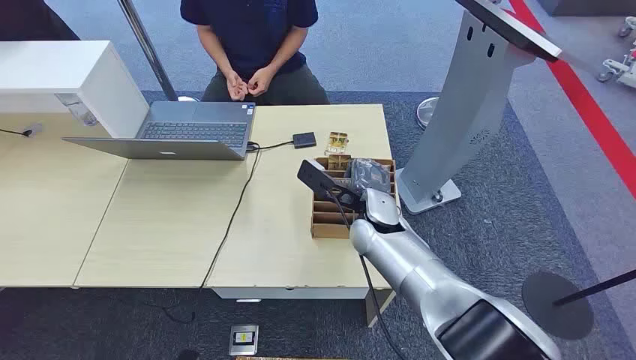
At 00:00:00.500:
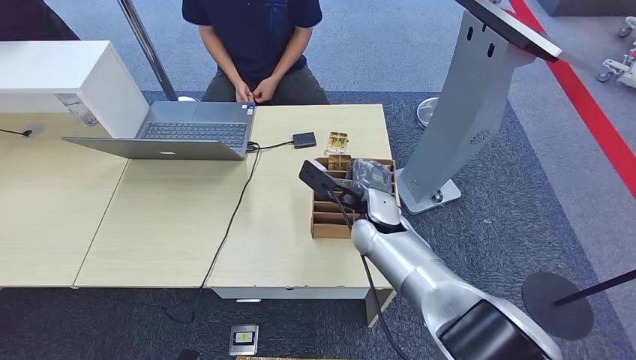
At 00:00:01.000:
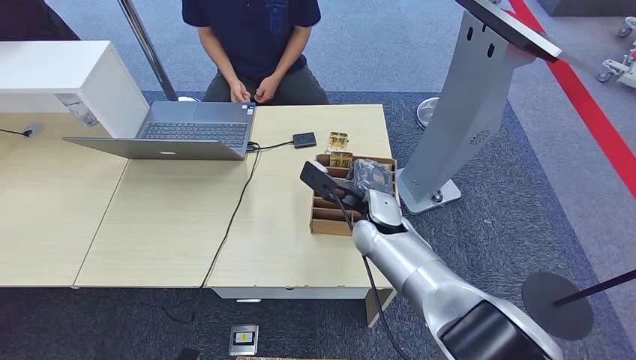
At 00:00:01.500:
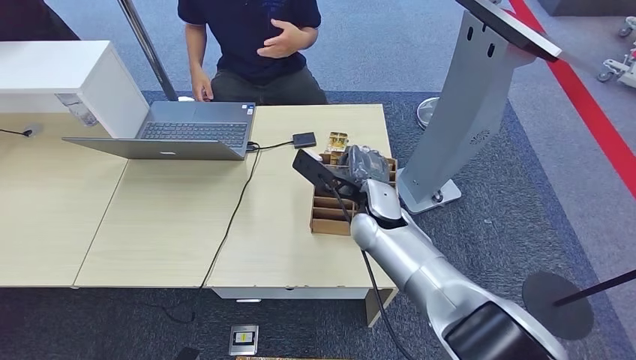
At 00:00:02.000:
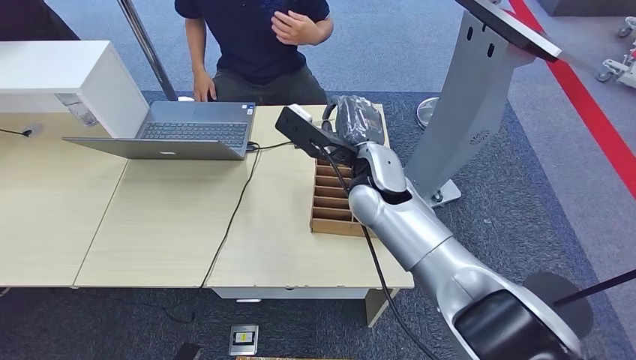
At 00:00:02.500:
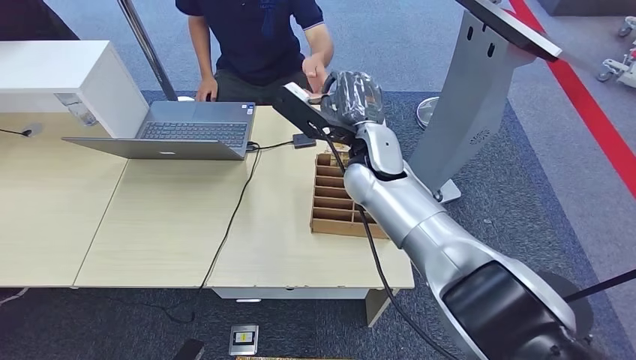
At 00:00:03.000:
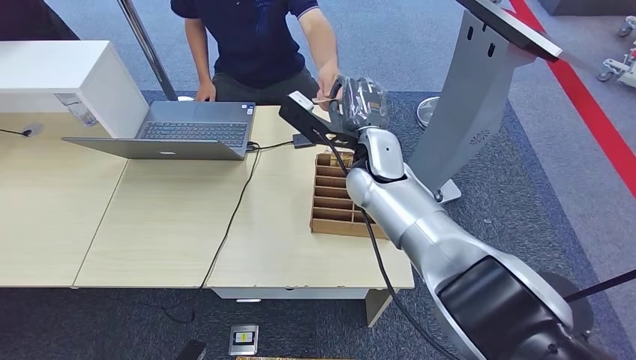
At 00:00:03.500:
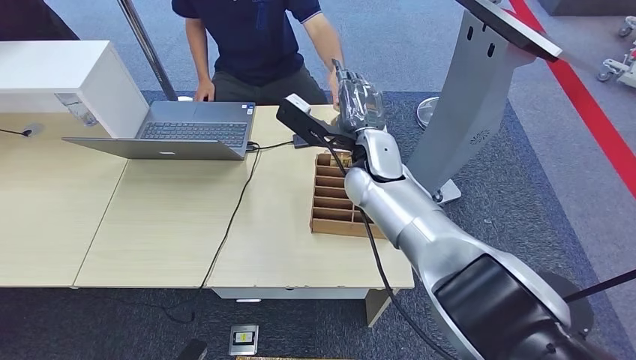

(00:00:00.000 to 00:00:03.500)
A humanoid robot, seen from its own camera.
Step, 00:00:00.000 - 00:00:02.000: Pick up the room card from the card holder.
Step, 00:00:02.500 - 00:00:03.500: Hand the room card to the target.
00:00:02.000 - 00:00:03.500: The hands make only small movements.

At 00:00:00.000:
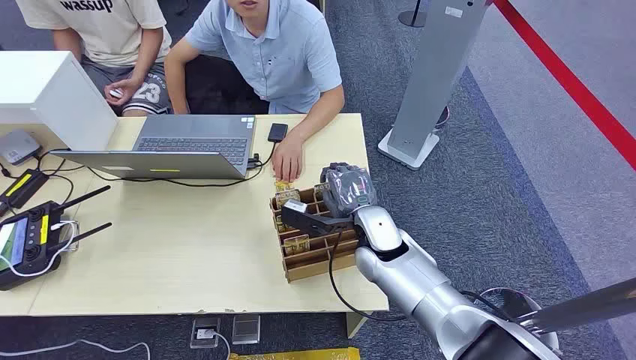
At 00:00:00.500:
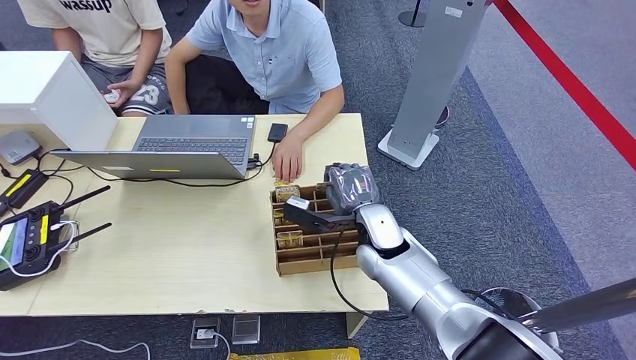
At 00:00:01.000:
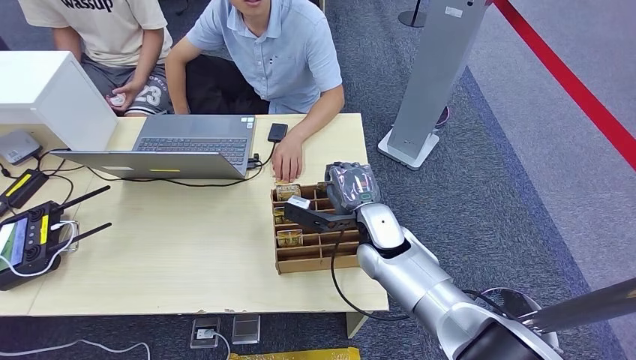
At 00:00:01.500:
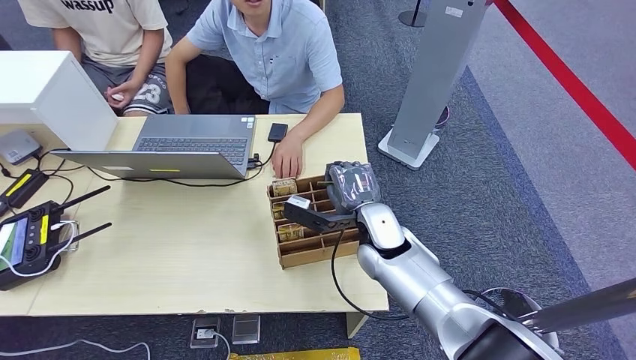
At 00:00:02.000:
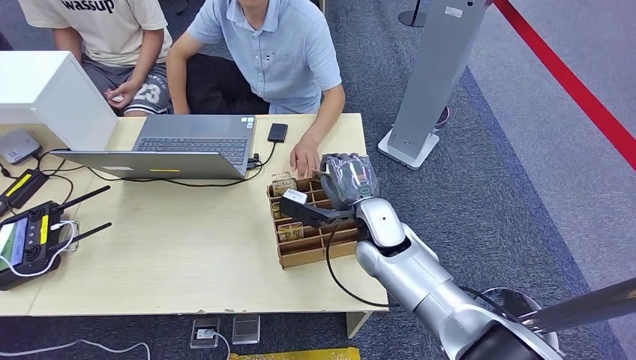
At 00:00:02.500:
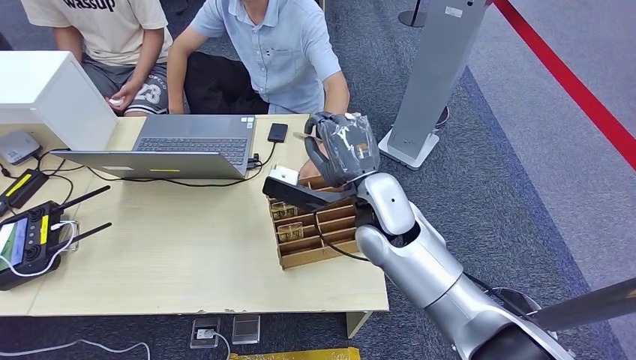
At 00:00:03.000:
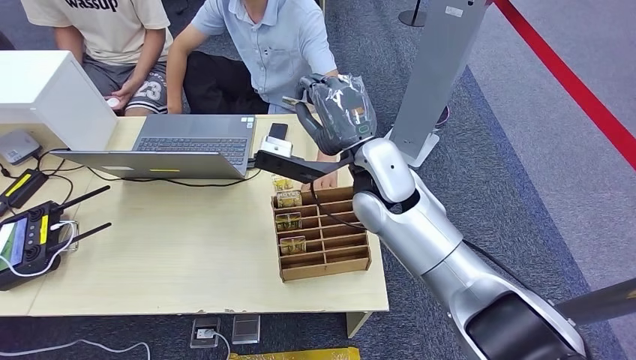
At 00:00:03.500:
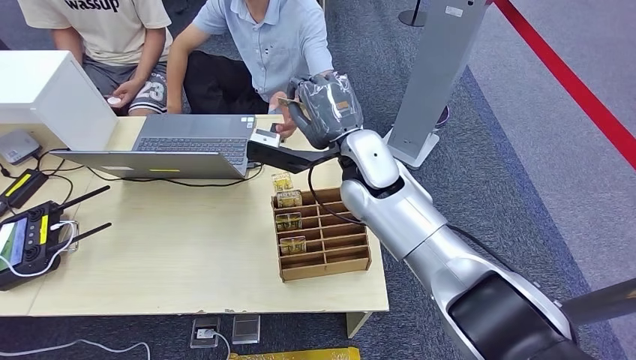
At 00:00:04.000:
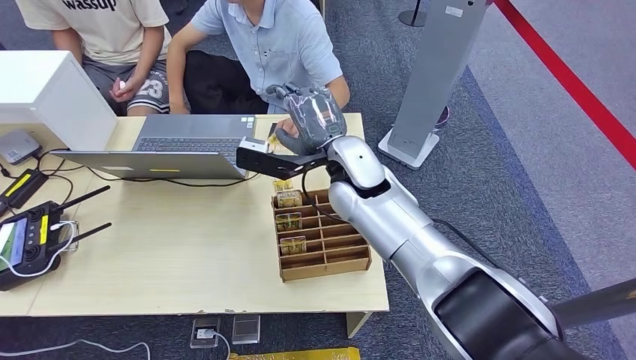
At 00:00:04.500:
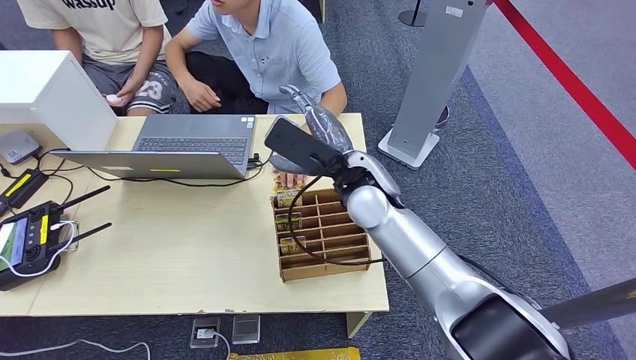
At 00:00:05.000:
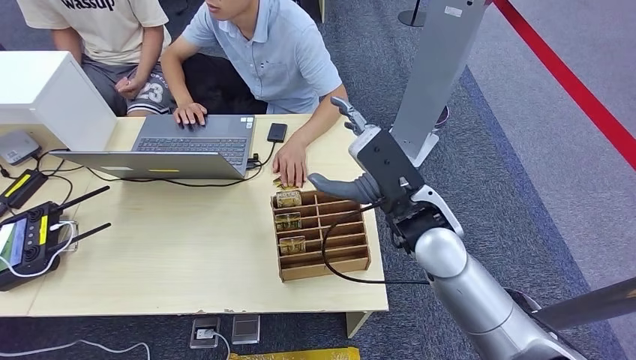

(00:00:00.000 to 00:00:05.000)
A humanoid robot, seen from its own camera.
Step, 00:00:00.000 - 00:00:02.000: Pick up the room card from the card holder.
Step, 00:00:03.000 - 00:00:05.000: Hand the room card to the target.
00:00:02.500 - 00:00:05.000: The right hand is displaced to the right by approximately 5 cm.

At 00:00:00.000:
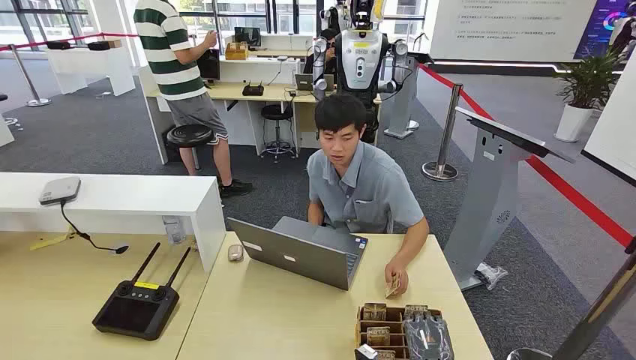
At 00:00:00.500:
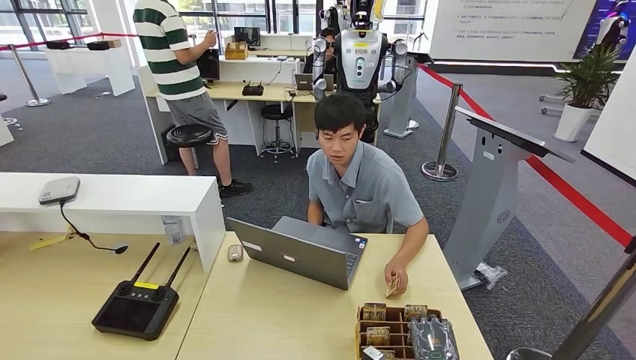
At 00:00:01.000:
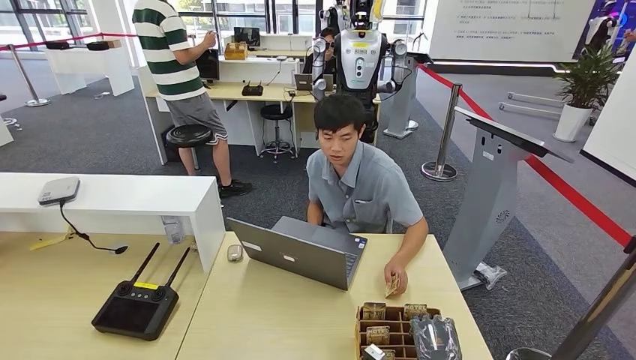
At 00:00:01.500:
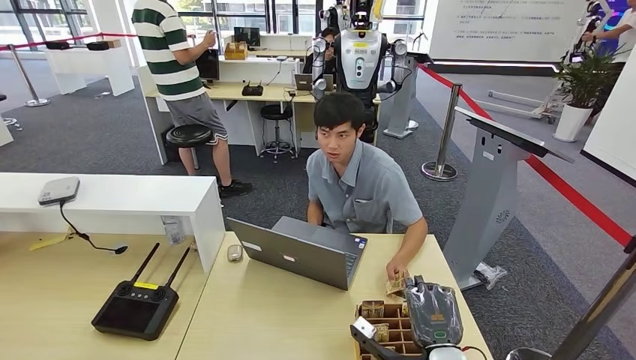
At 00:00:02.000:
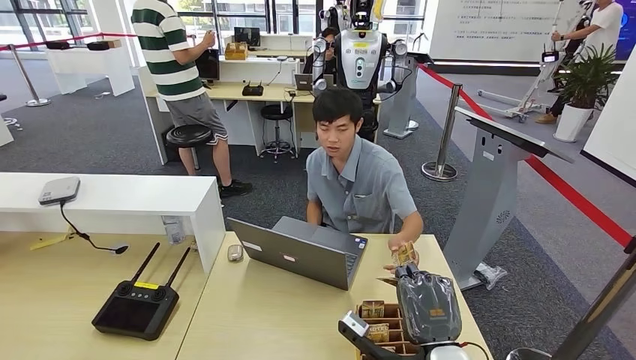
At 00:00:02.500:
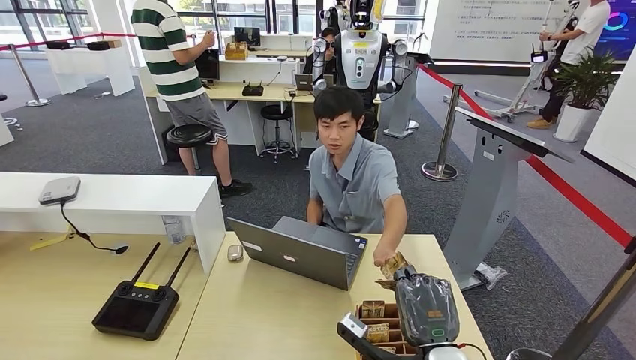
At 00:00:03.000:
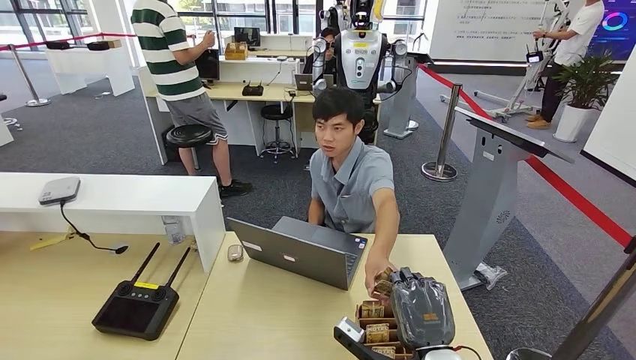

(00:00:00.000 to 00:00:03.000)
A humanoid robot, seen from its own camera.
Step, 00:00:00.000 - 00:00:01.000: Pick up the room card from the card holder.
Step, 00:00:02.000 - 00:00:03.000: Hand the room card to the target.
00:00:01.500 - 00:00:03.000: The hands move only a little.
